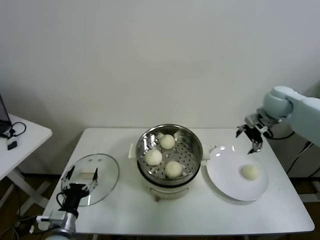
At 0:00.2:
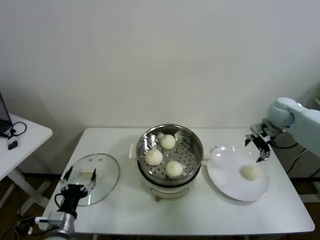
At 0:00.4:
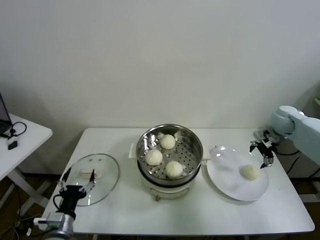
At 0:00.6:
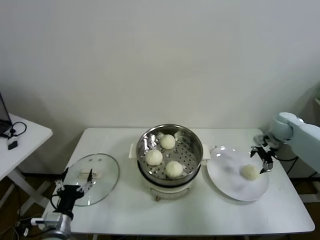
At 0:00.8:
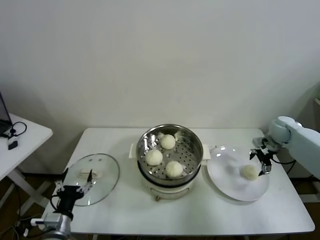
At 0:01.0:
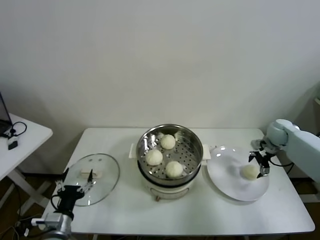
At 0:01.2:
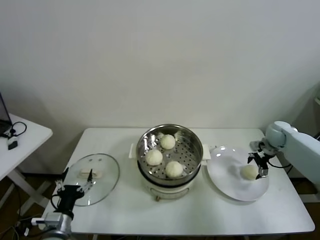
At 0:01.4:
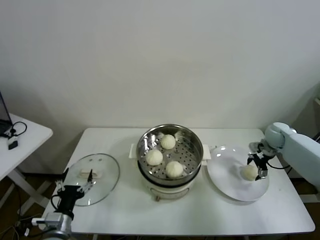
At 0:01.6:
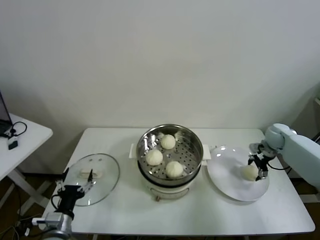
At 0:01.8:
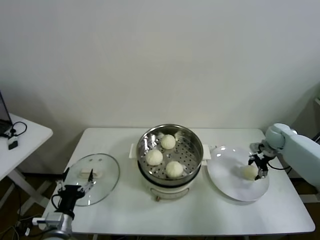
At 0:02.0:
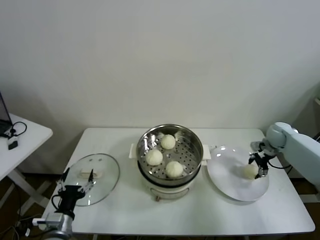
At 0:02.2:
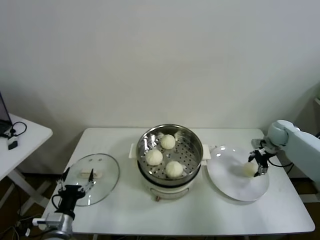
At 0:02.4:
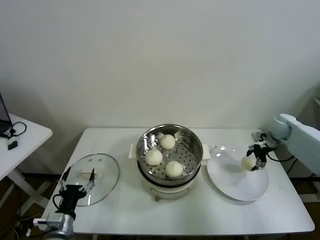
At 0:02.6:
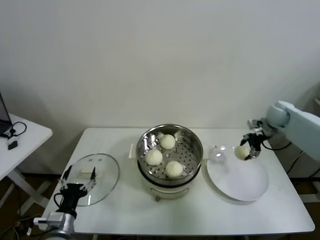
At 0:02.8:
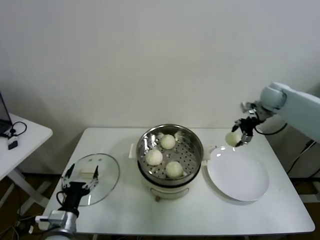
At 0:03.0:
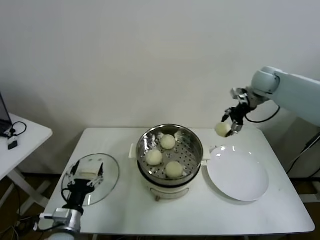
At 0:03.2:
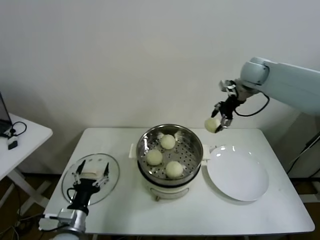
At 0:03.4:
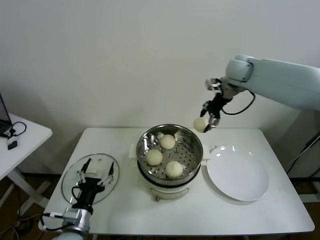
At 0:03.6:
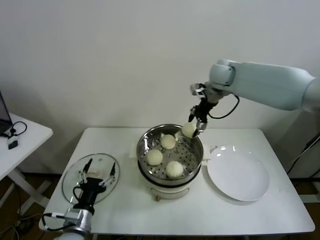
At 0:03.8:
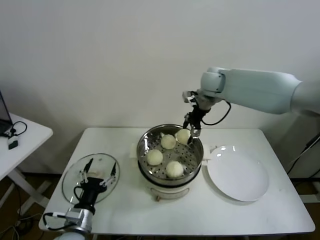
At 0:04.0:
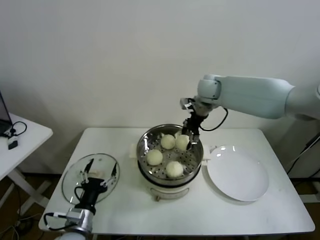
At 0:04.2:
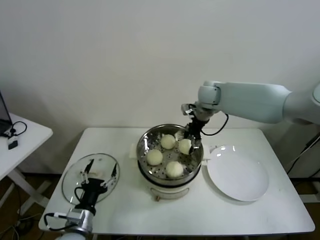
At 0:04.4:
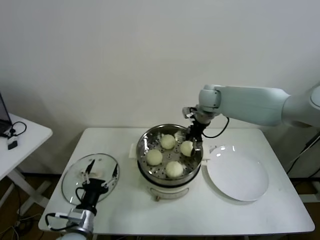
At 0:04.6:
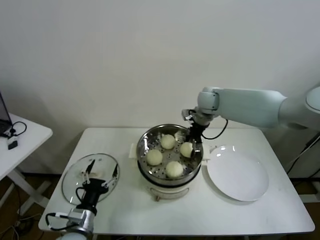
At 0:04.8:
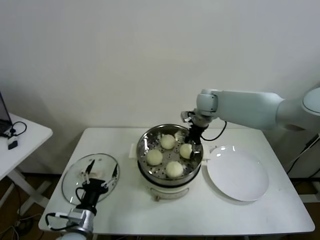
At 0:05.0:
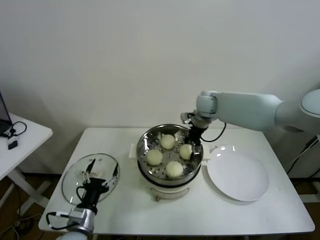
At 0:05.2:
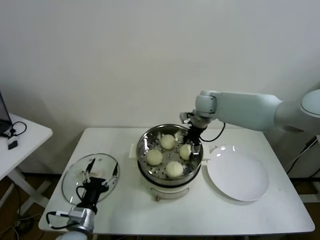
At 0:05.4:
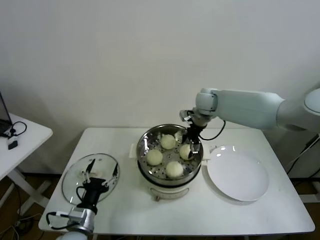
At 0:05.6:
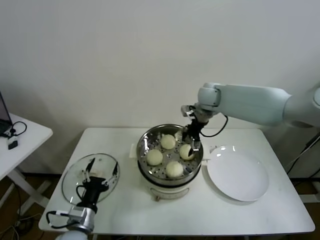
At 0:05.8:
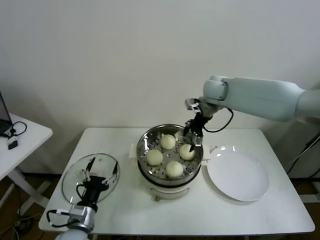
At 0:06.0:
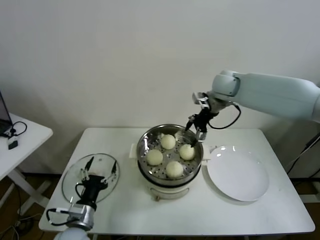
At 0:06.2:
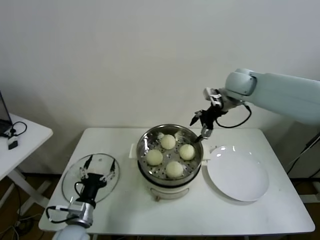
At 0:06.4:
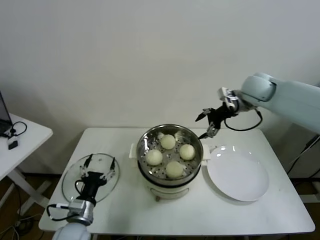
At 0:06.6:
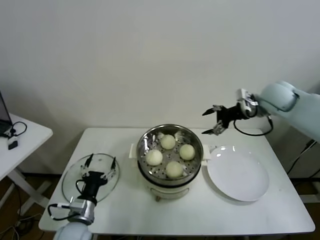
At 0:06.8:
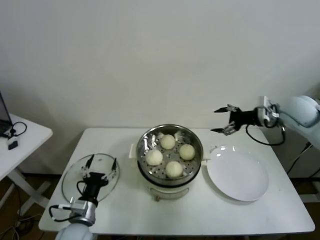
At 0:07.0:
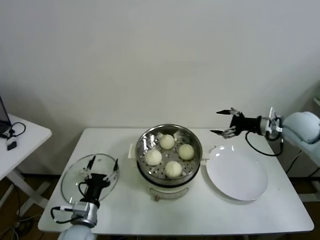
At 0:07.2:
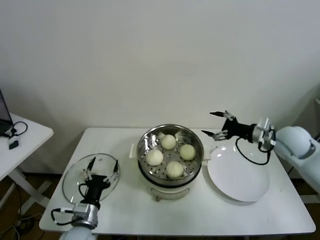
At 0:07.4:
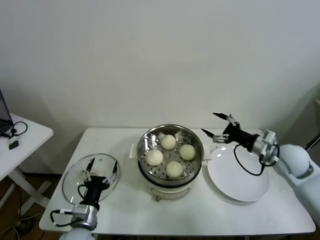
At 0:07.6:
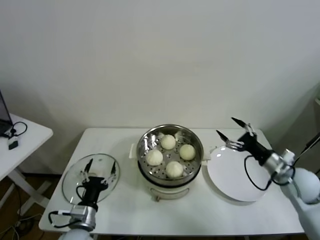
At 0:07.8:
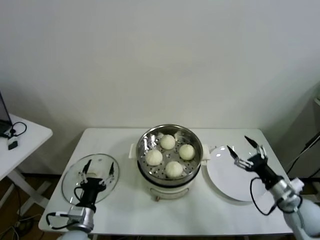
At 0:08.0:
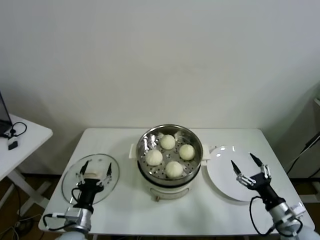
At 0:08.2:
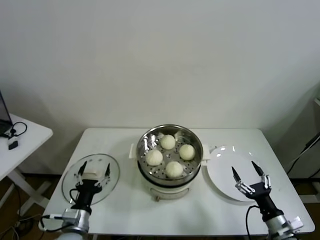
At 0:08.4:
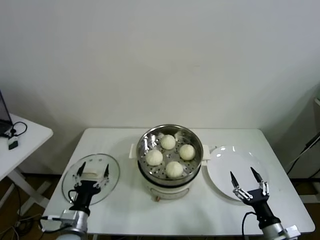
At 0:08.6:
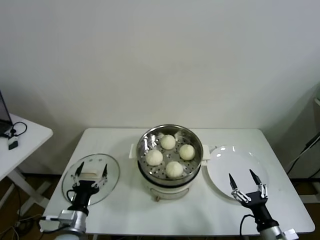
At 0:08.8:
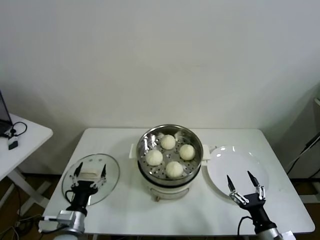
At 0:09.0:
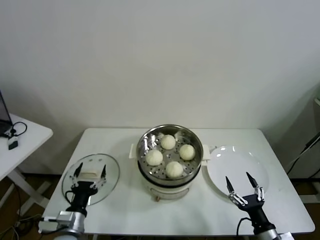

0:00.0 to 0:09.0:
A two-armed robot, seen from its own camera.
Task of the whole recording: take steamed baozi put them in steamer.
Step, 0:00.0 to 0:01.8: Grasp the baozi in the plate with right gripper.
Step, 0:02.0 to 0:05.2: Place the baozi on the steamer with right gripper.
0:00.0 to 0:01.6: The right gripper moves downward and to the right, roughly 20 cm.
0:01.6 to 0:03.0: The right gripper heads upward and to the left, covering approximately 25 cm.
0:03.0 to 0:04.4: The right gripper travels to the left by approximately 20 cm.
0:04.4 to 0:06.0: The right gripper goes some 5 cm upward, and opens up.
0:06.0 to 0:07.6: The right gripper is displaced backward, to the right and downward by about 35 cm.
0:07.6 to 0:09.0: The right gripper heads backward and downward, covering about 25 cm.
